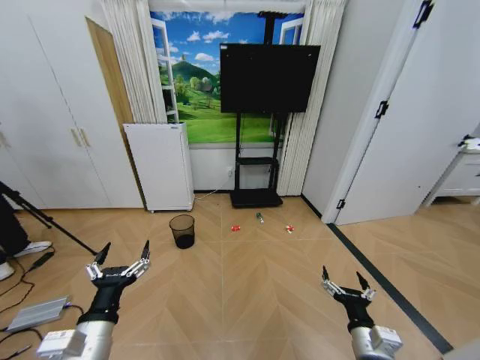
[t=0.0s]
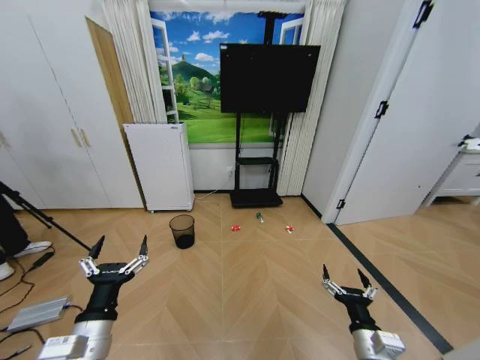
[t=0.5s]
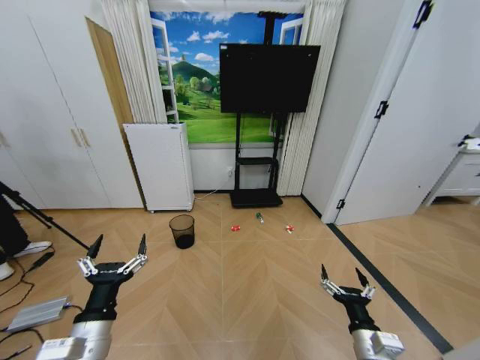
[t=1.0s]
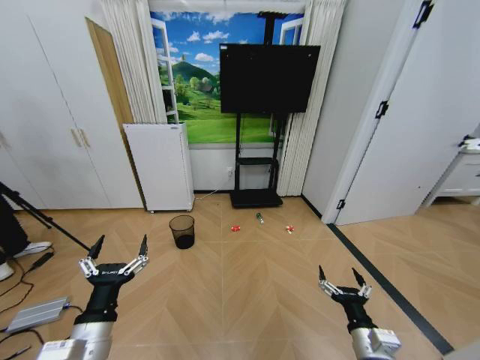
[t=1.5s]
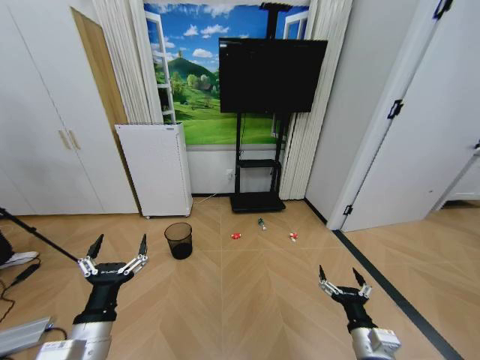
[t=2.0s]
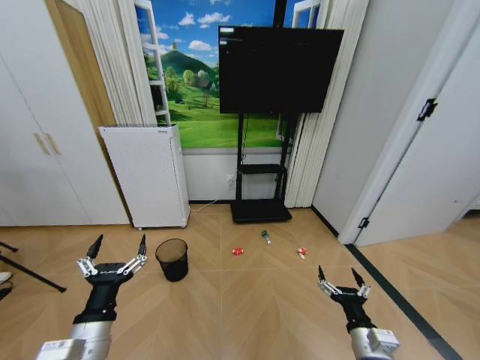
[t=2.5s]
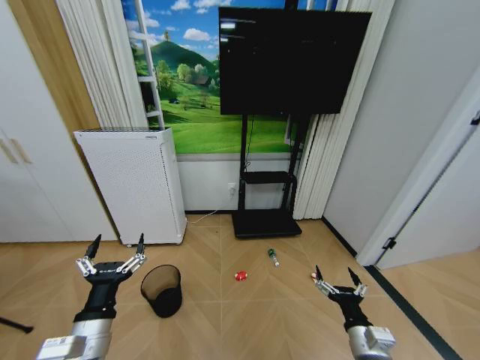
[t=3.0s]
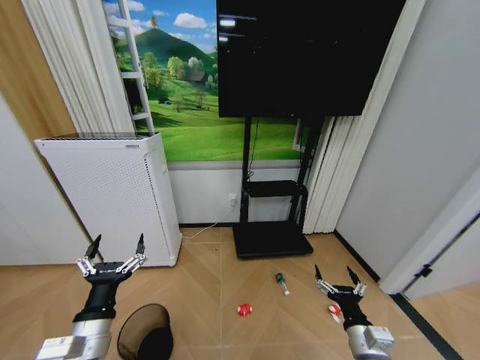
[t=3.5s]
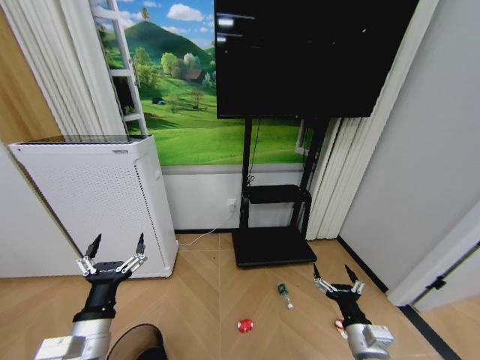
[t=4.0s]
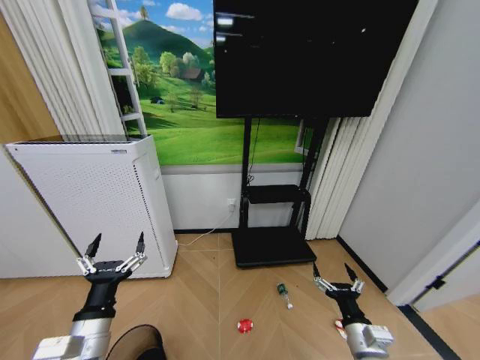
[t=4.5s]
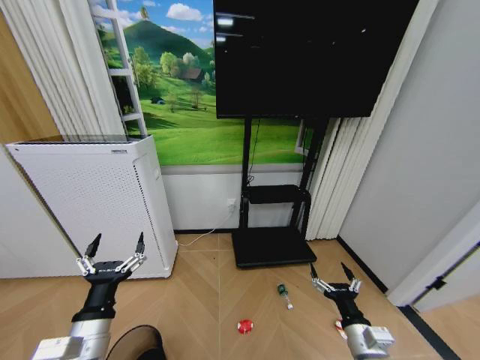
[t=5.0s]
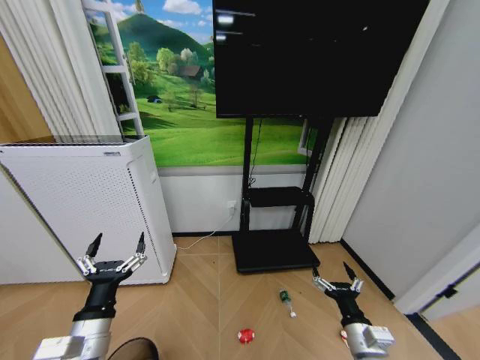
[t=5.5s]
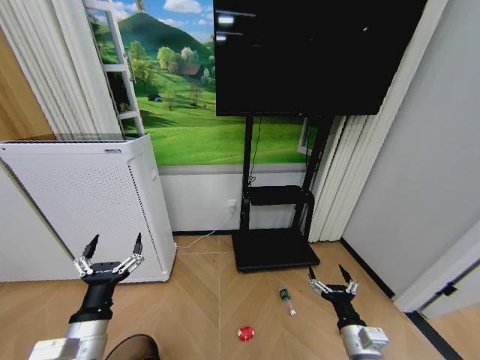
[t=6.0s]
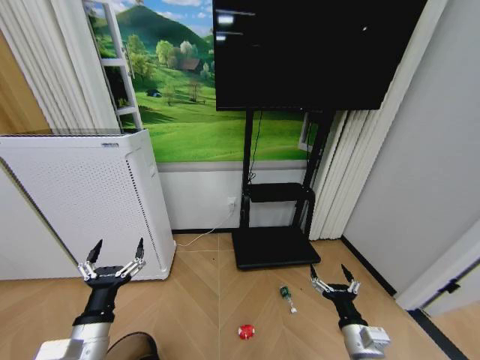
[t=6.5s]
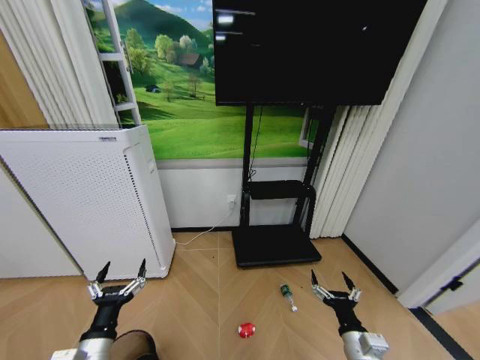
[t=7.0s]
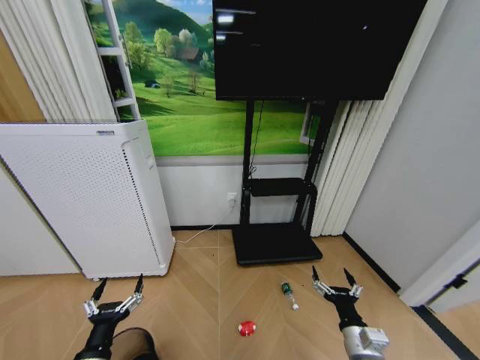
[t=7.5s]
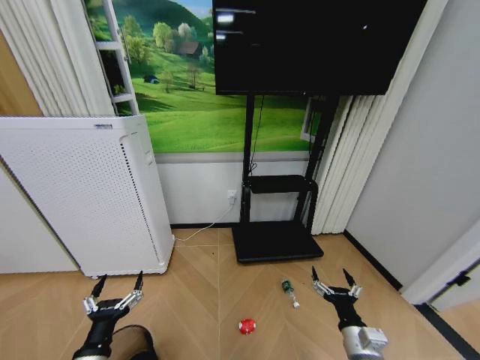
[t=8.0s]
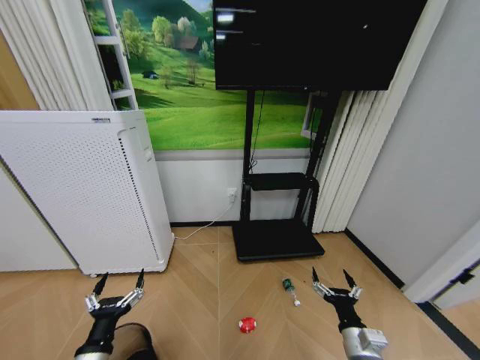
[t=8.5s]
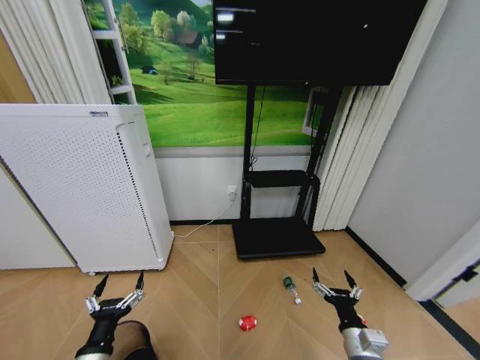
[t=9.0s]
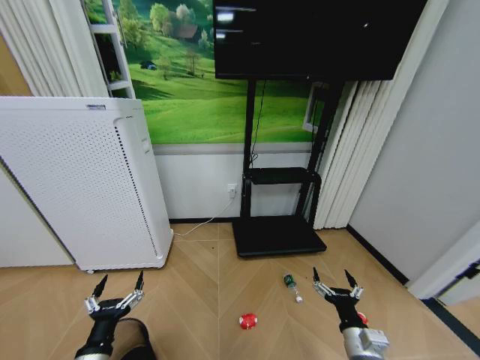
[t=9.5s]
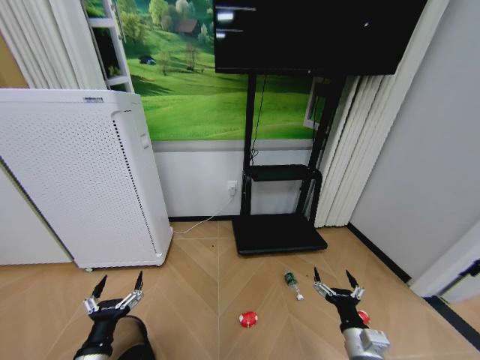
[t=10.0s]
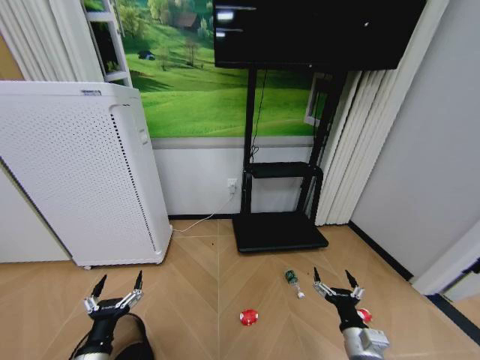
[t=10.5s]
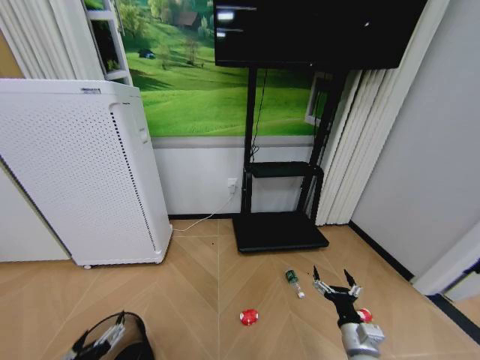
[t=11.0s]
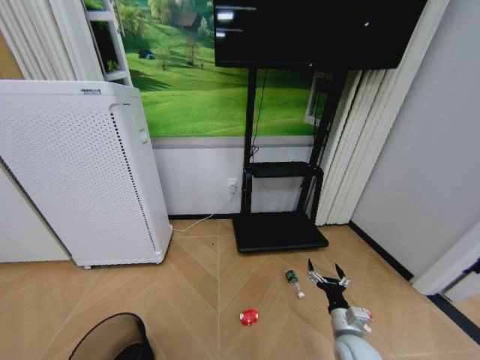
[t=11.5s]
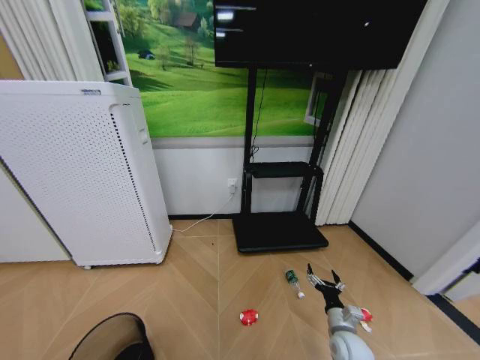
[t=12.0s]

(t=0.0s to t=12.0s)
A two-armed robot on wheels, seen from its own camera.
Task of the whole recording: Pick up the trash bin and place the garbage on the floor into it.
t=4.0s - t=6.0s: Both grippers stay about where they are.
t=6.0s - t=8.0s: The left gripper is displaced downward by roughly 10 cm.
t=8.0s - t=10.0s: Both grippers stay about where they are.
t=10.0s - t=12.0s: The right gripper travels downward and forward by roughly 10 cm, while the left gripper goes about 15 cm backward and upward.

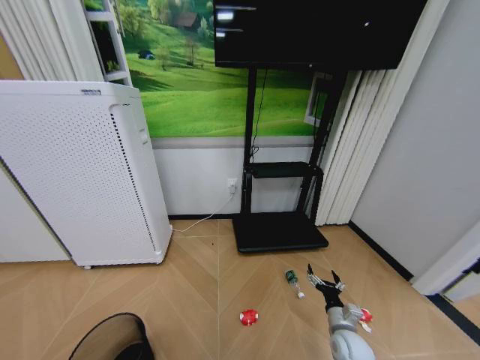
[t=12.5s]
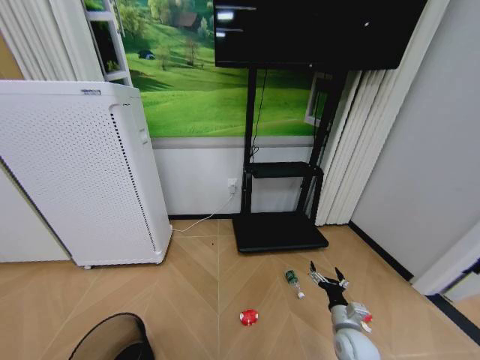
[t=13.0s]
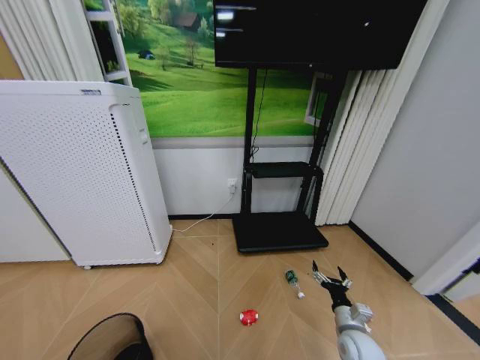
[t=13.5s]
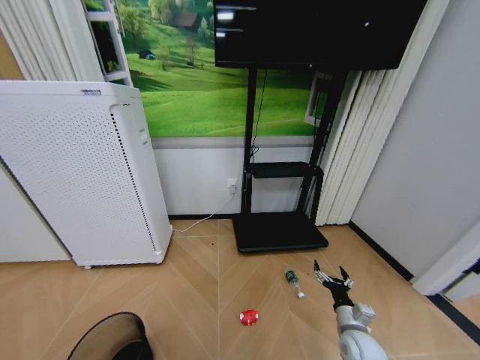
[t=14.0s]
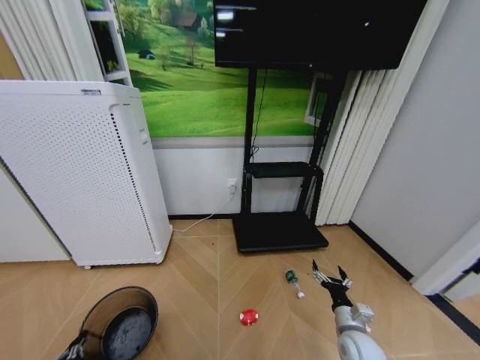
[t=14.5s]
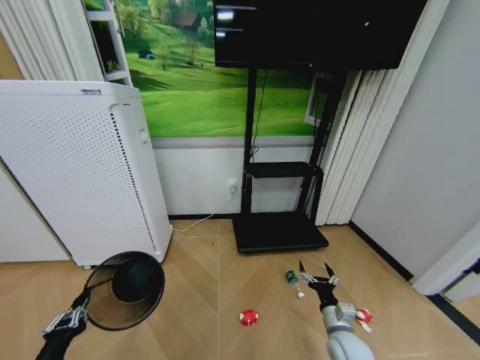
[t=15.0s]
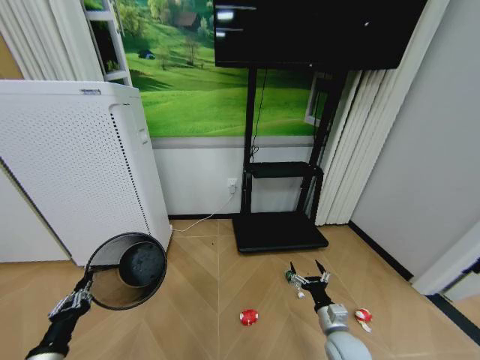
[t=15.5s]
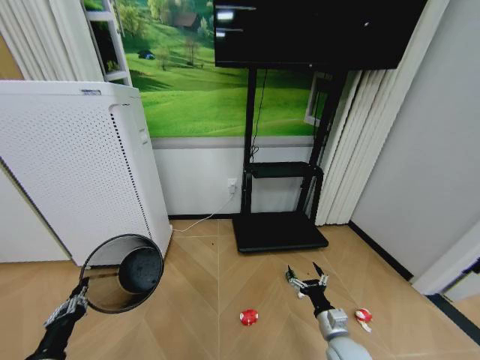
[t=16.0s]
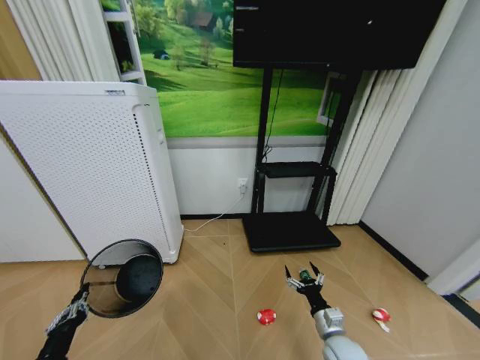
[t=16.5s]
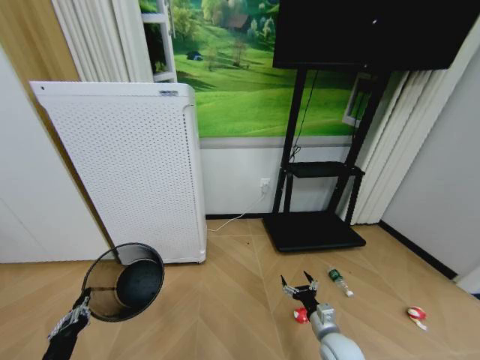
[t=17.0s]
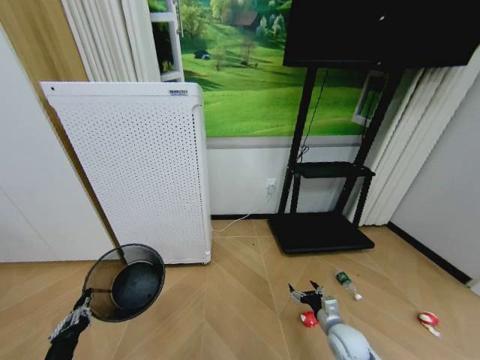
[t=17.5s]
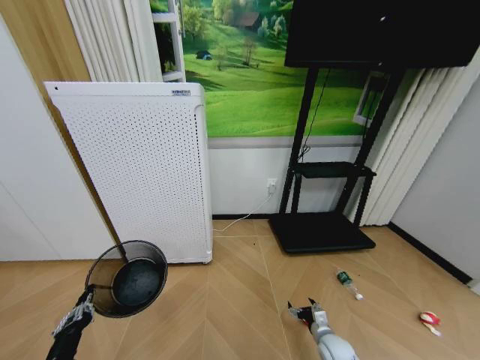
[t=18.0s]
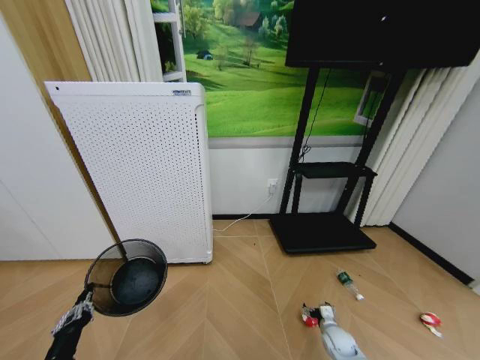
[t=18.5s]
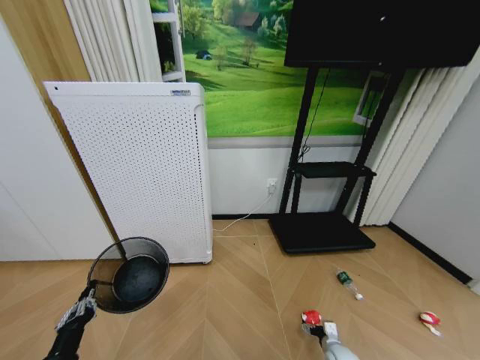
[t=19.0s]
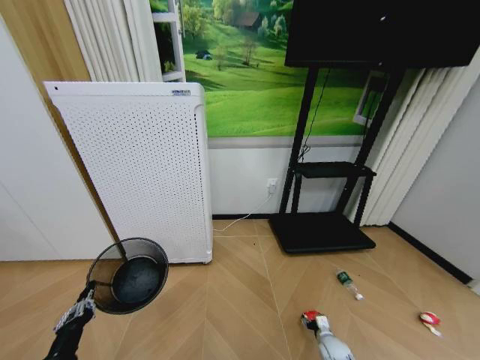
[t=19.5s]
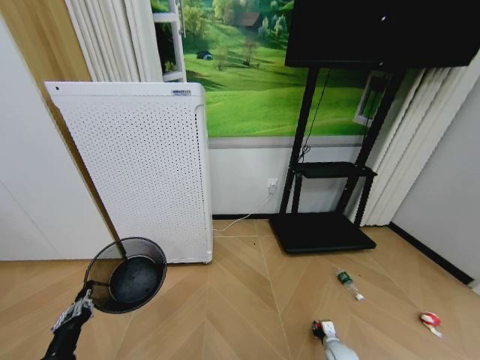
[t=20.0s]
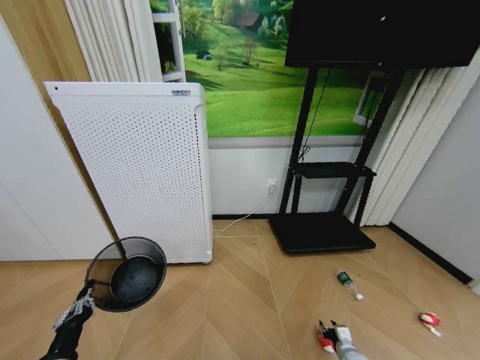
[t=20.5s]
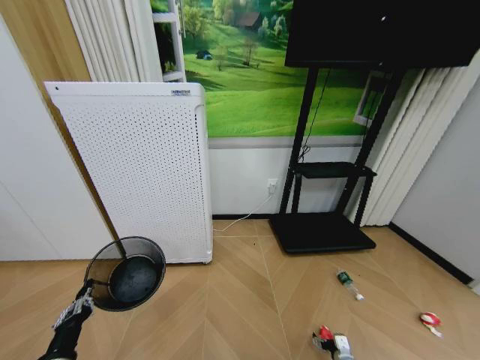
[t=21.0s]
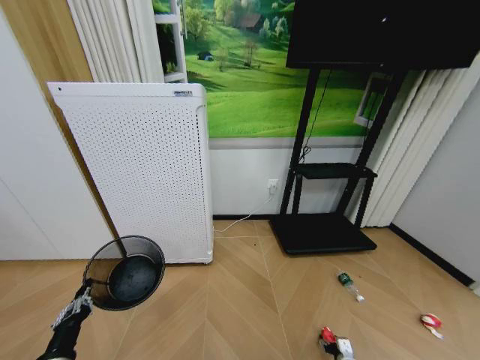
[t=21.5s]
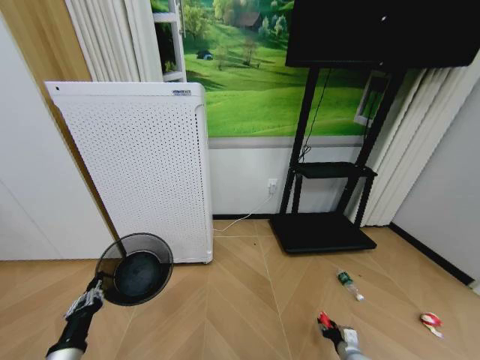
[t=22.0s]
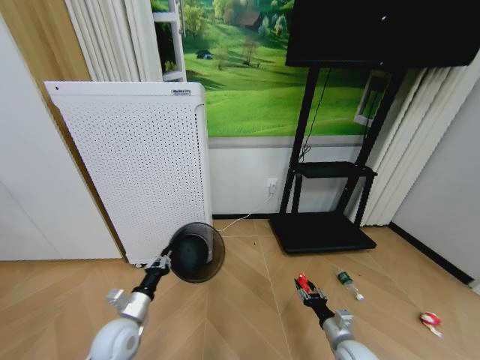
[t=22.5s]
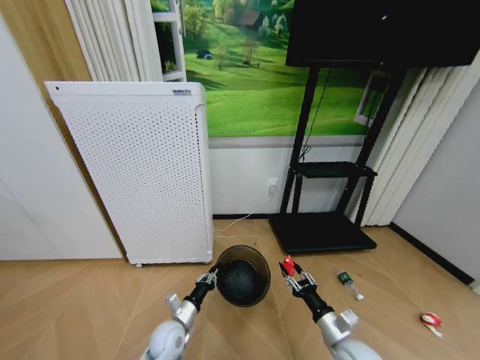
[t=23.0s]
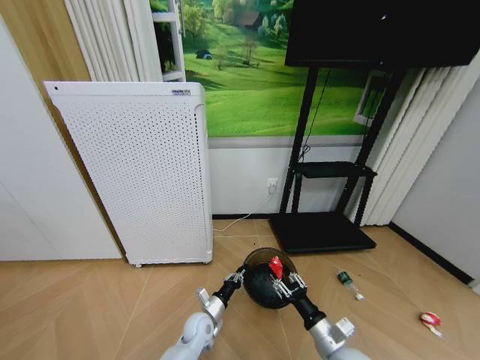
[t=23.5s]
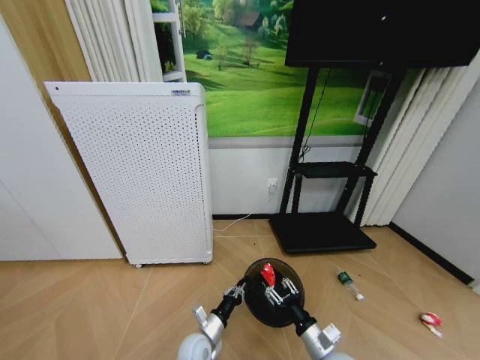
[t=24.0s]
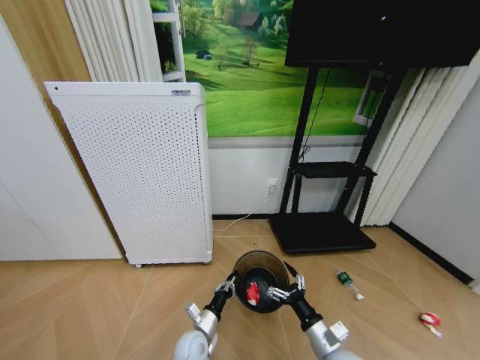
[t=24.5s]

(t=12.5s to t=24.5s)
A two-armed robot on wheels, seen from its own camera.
Task of the whole recording: Pick up the trash bin and place the garbage on the floor into it.
t=12.5s - t=14.5s: The left gripper moves to the left, forward and downward, approximately 10 cm, and closes its fingers.
t=14.5s - t=16.5s: The left gripper ends up about 5 cm from where it was, while the right gripper is displaced to the left by about 5 cm.
t=16.5s - t=18.5s: The right gripper travels downward, to the right and forward by roughly 15 cm.
t=18.5s - t=20.5s: The right gripper heads backward, covering about 5 cm, and closes up.
t=20.5s - t=22.5s: The right gripper goes roughly 15 cm upward and to the left, and opens, then closes once more, while the left gripper shifts about 15 cm forward and to the right.
t=22.5s - t=24.5s: The right gripper travels to the left and upward by some 10 cm, and opens up. Meanwhile the left gripper is displaced to the right and downward by approximately 20 cm.

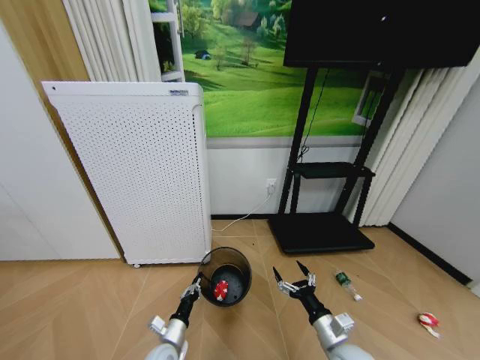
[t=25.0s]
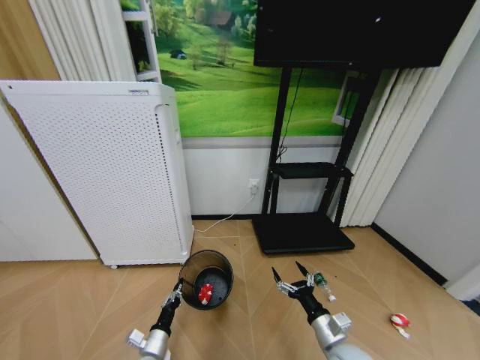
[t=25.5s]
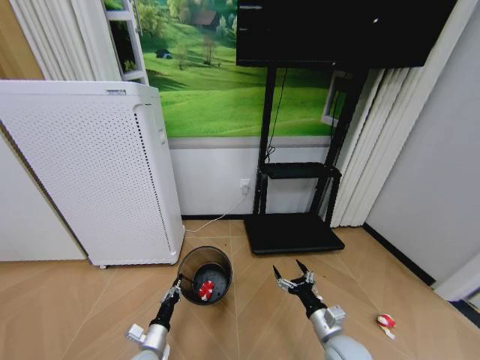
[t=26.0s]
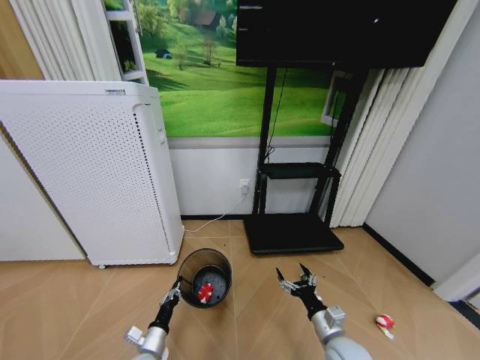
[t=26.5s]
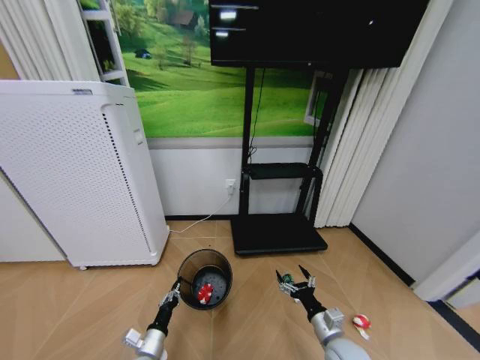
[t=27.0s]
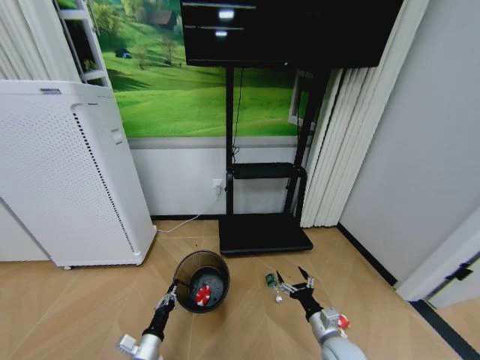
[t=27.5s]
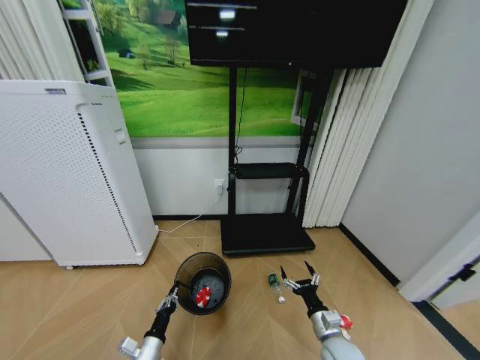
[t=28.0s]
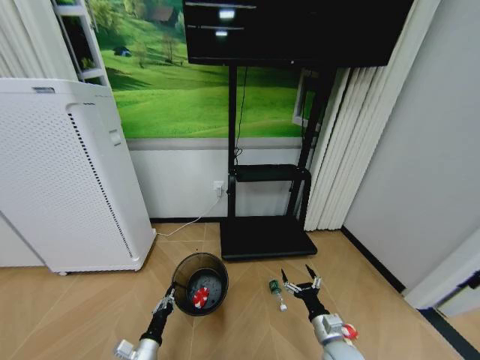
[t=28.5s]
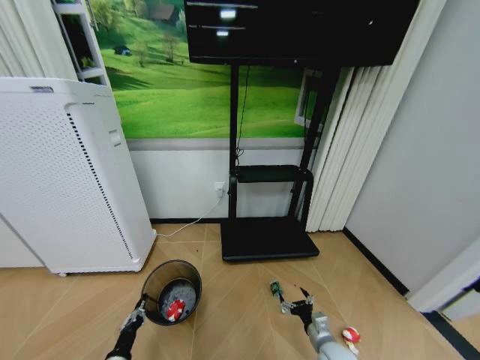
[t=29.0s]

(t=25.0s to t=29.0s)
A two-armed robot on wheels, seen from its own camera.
Task of the whole recording: Pick up the trash bin and place the garbage on the floor into it.
t=25.0s - t=27.0s: The left gripper ends up about 5 cm from where it was.
t=27.0s - t=29.0s: The right gripper goes approximately 10 cm downward. The left gripper is displaced to the left and backward by approximately 10 cm.
